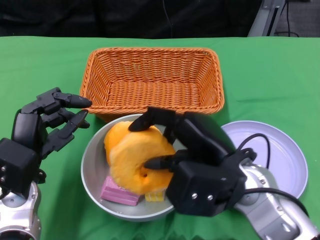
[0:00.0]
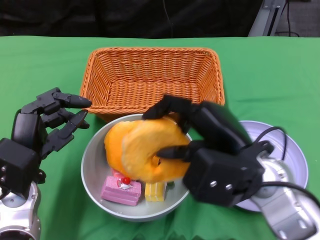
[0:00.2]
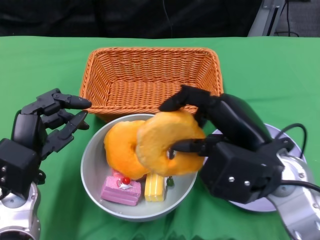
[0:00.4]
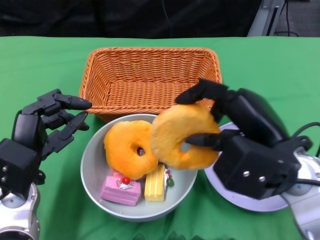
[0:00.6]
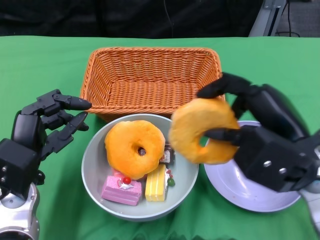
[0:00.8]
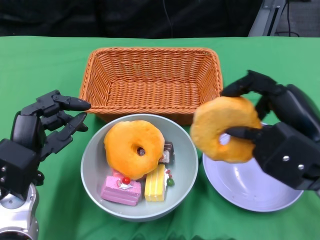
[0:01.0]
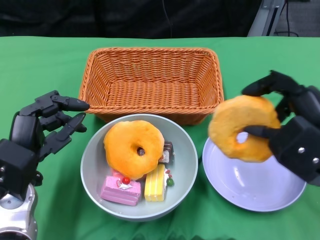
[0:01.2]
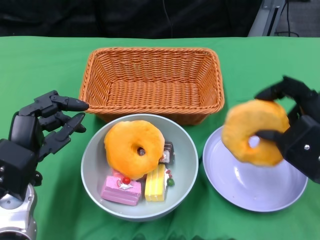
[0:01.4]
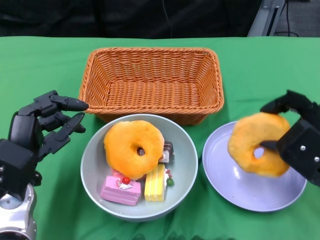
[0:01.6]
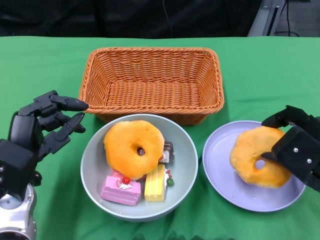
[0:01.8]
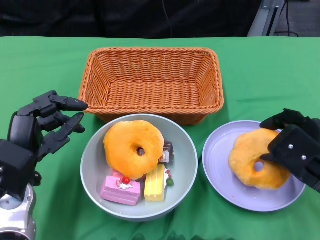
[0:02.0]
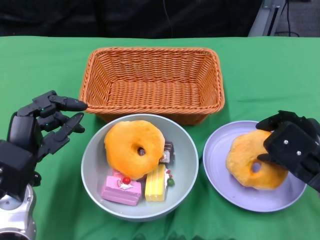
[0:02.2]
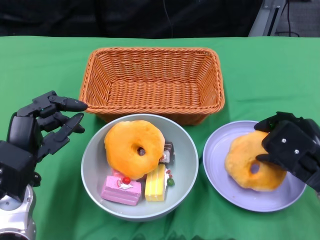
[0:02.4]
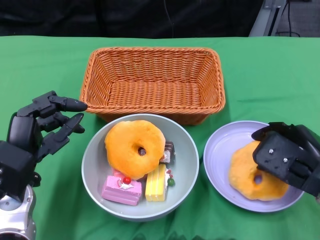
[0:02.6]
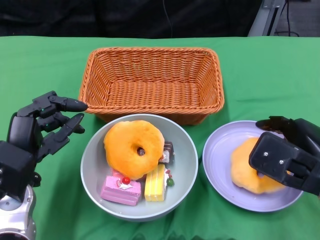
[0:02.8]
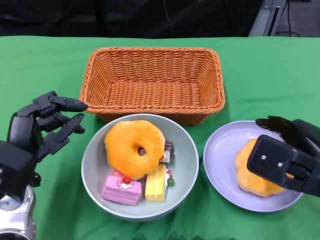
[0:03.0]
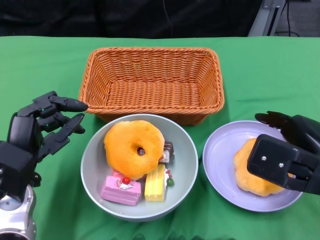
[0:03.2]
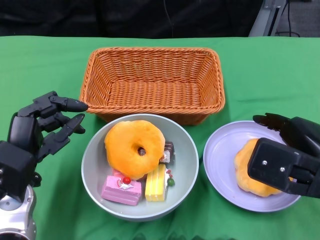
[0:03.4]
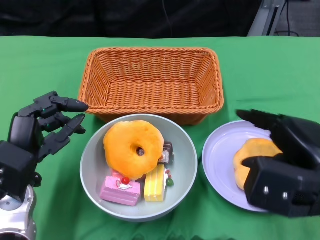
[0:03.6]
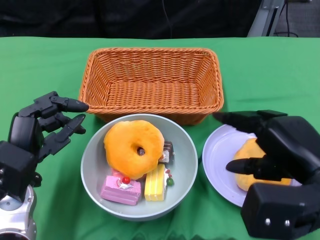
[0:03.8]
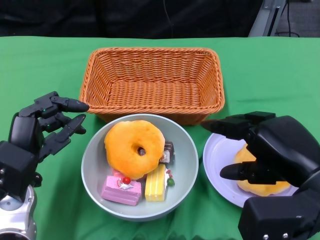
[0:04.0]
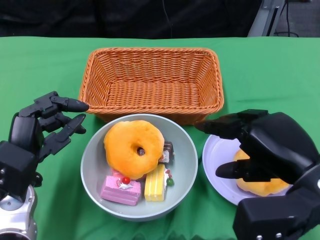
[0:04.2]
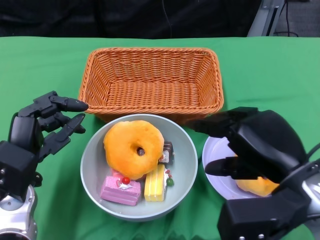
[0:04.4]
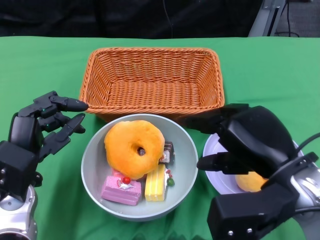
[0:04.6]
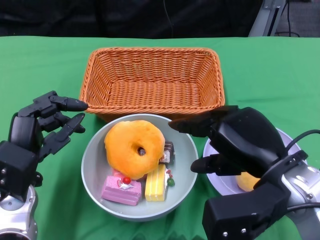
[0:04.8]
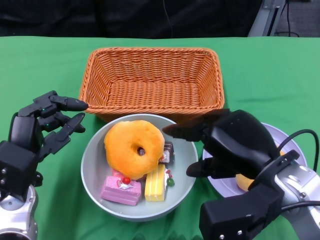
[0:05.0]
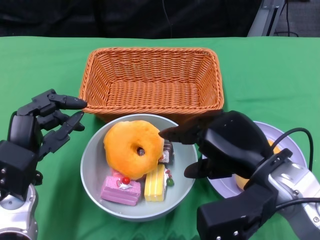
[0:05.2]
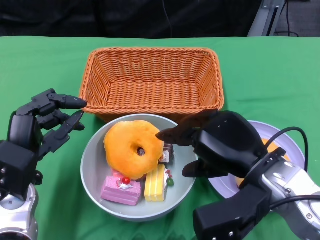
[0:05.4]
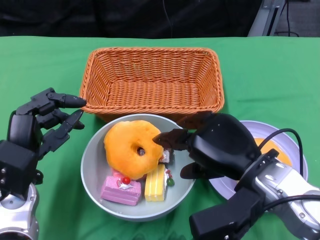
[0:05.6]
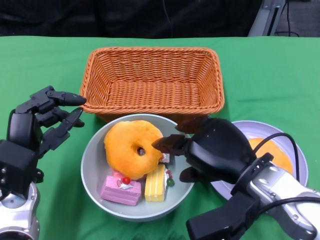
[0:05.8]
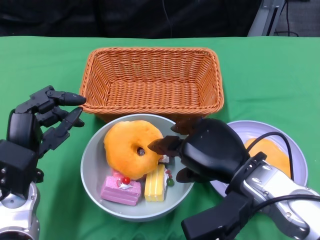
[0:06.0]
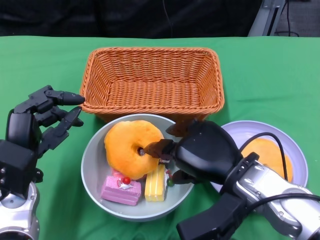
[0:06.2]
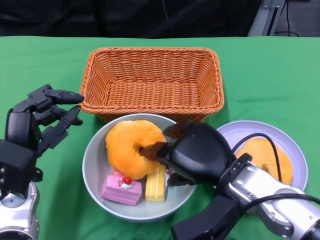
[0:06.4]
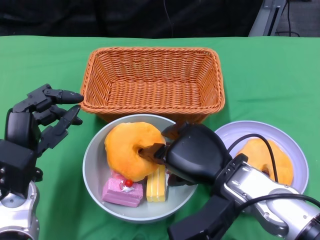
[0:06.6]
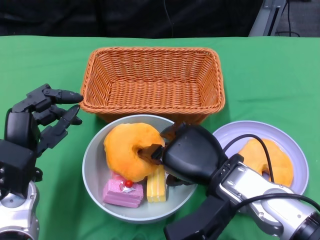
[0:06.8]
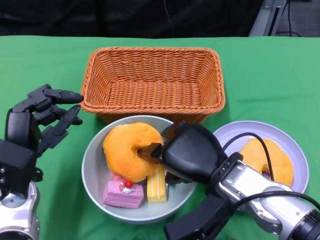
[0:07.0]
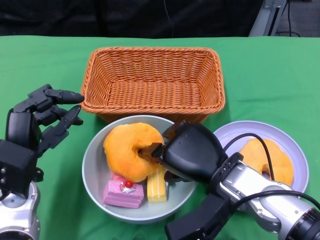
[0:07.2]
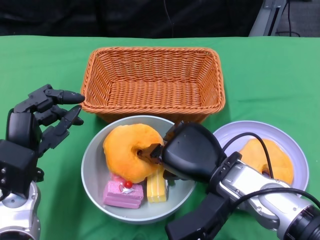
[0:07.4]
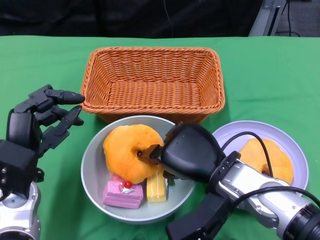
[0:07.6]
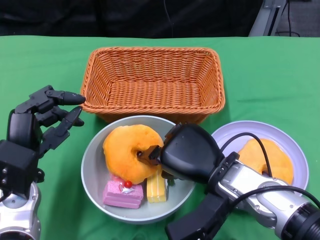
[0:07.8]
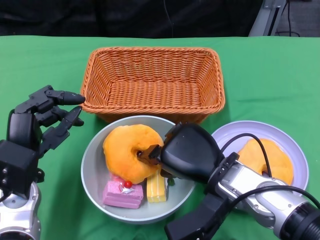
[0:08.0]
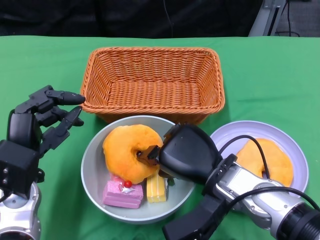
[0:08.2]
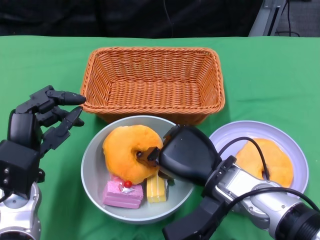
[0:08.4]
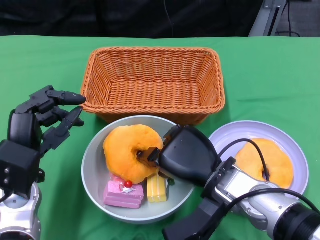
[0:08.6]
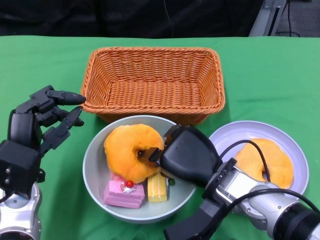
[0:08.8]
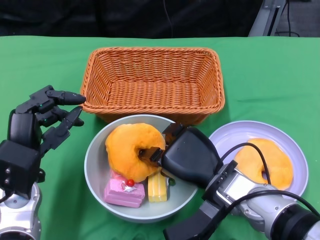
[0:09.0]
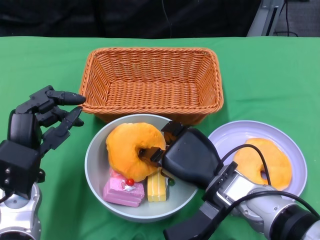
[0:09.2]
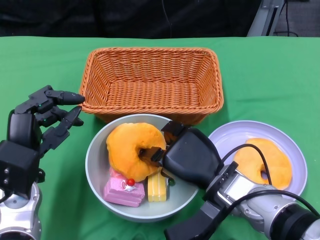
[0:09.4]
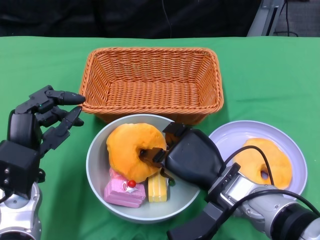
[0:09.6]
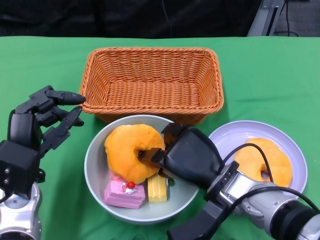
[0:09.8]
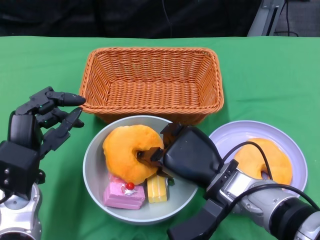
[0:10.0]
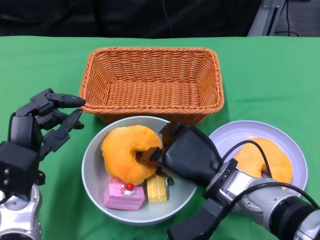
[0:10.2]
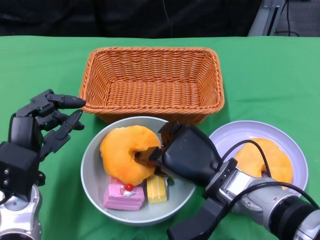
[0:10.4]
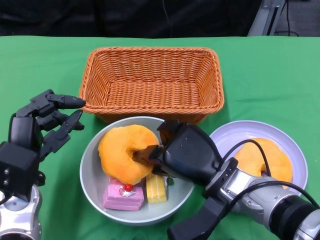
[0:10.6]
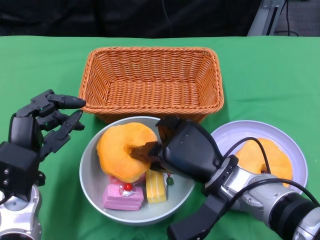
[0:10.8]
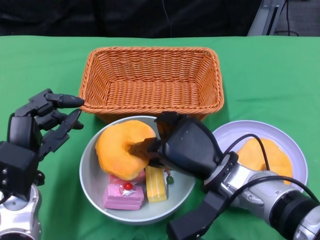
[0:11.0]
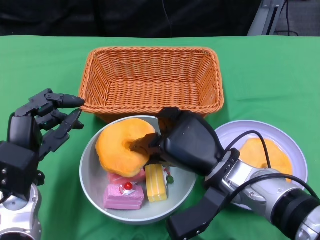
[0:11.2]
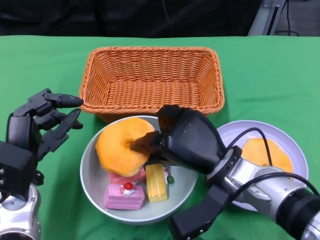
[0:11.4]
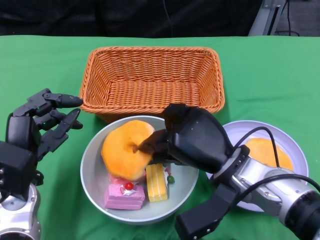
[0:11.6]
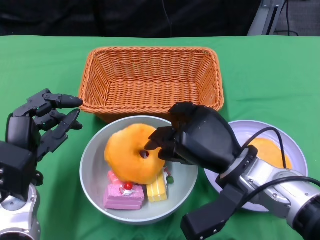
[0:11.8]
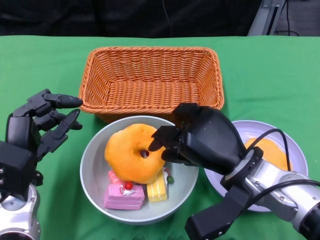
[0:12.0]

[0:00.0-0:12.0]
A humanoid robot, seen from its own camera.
0:00.0 to 0:01.6: The right hand is displaced to the right by about 15 cm.
0:03.0 to 0:04.4: The right hand shifts by about 5 cm.
0:04.4 to 0:06.0: The right hand shifts some 5 cm to the left.
0:06.0 to 0:07.6: There are only small adjustments of the hands.
0:07.6 to 0:10.4: The hands move only a little.

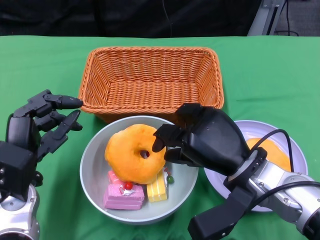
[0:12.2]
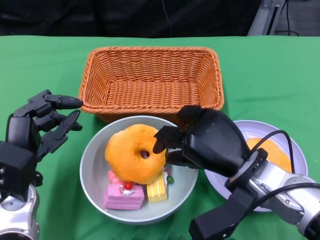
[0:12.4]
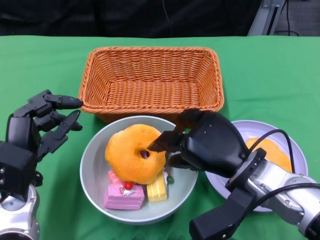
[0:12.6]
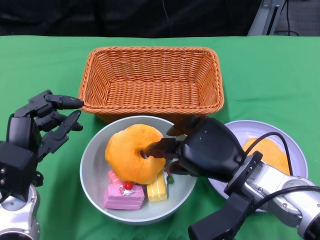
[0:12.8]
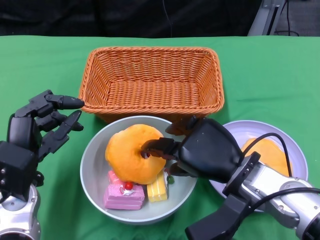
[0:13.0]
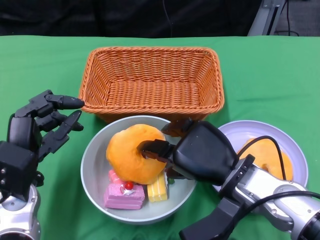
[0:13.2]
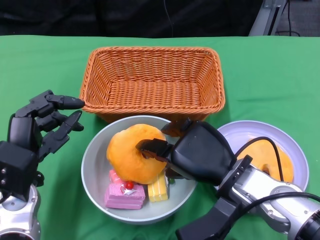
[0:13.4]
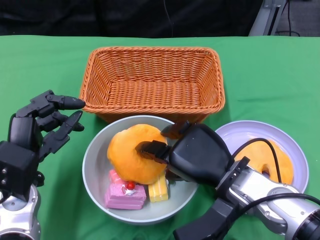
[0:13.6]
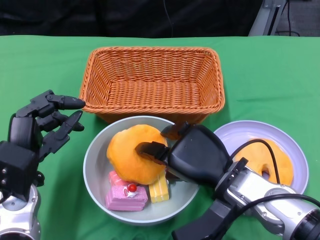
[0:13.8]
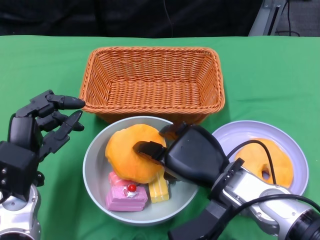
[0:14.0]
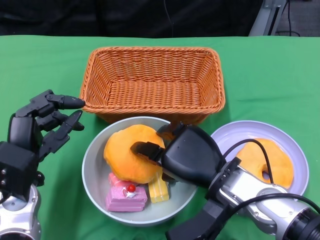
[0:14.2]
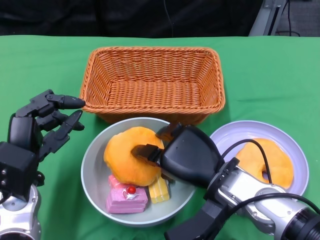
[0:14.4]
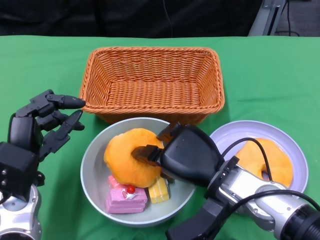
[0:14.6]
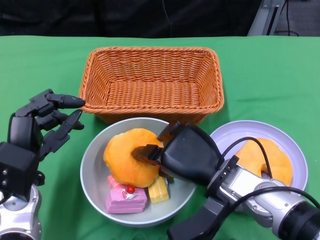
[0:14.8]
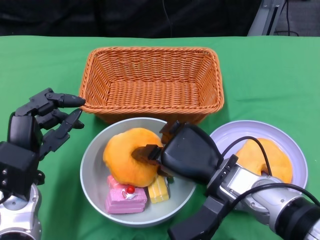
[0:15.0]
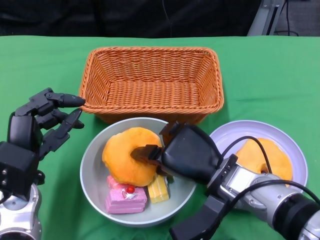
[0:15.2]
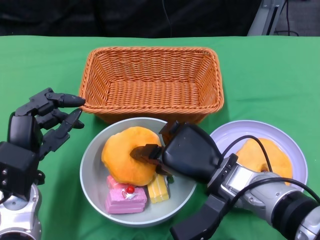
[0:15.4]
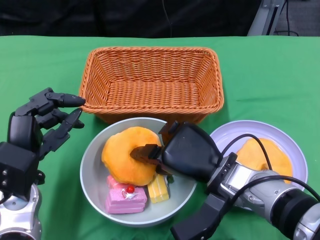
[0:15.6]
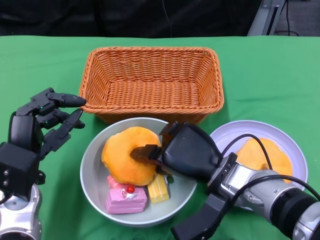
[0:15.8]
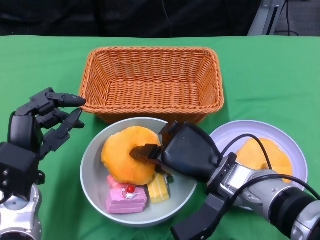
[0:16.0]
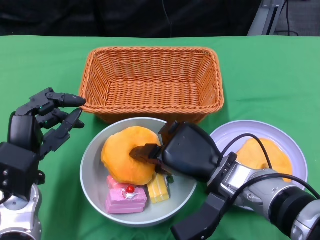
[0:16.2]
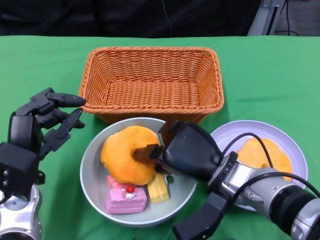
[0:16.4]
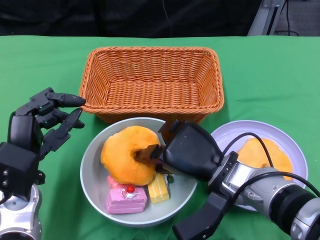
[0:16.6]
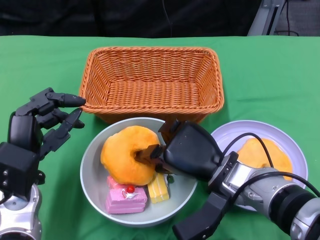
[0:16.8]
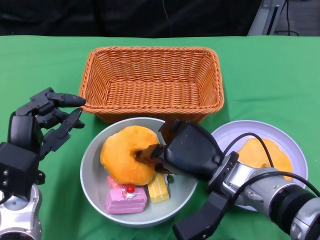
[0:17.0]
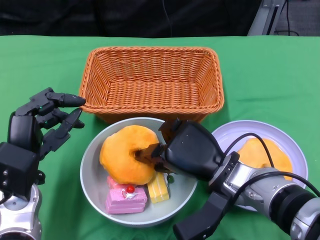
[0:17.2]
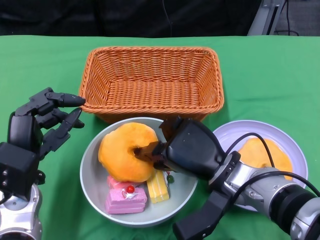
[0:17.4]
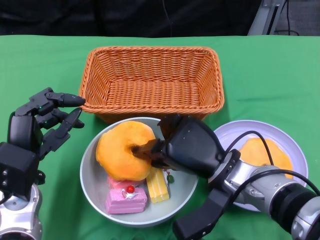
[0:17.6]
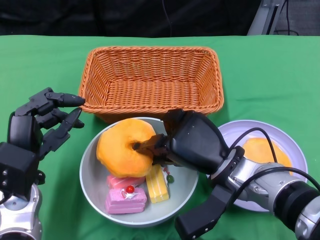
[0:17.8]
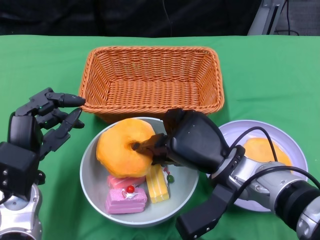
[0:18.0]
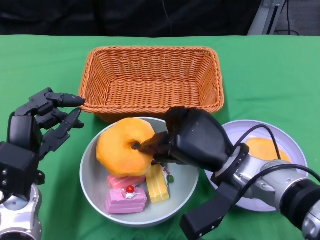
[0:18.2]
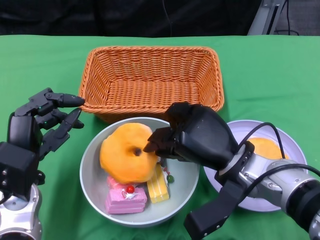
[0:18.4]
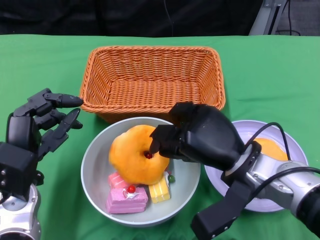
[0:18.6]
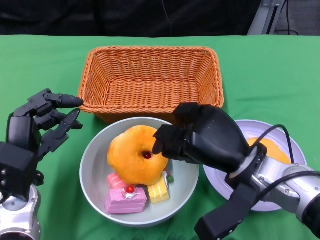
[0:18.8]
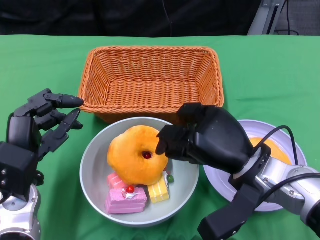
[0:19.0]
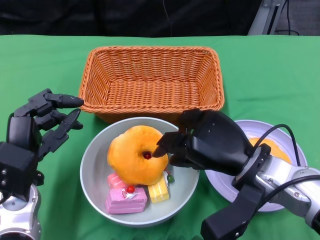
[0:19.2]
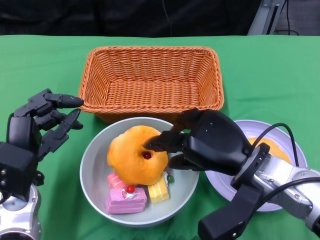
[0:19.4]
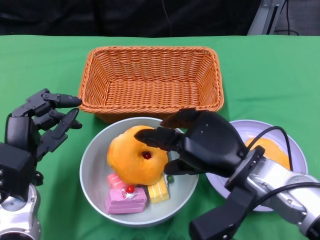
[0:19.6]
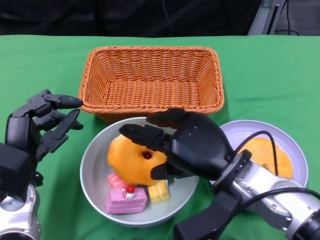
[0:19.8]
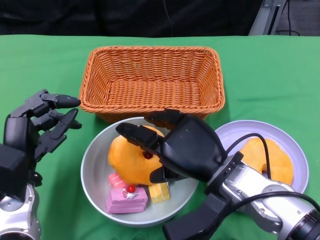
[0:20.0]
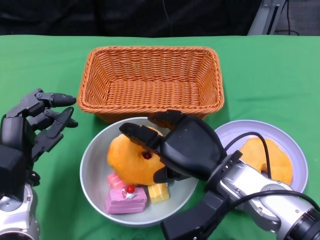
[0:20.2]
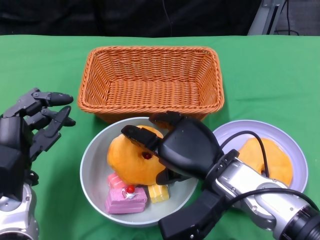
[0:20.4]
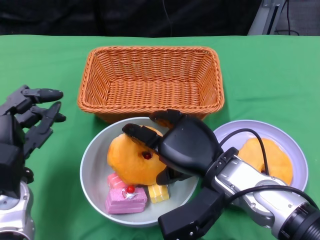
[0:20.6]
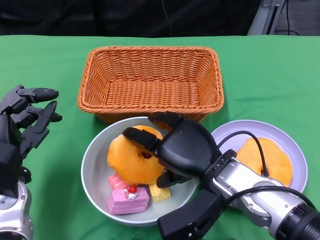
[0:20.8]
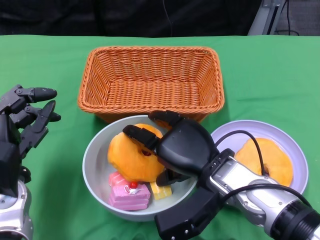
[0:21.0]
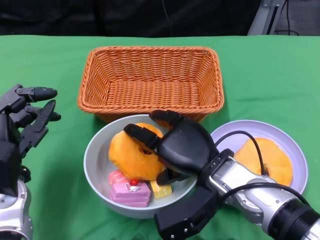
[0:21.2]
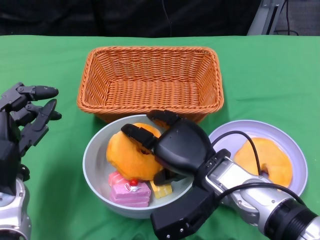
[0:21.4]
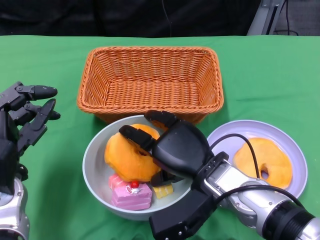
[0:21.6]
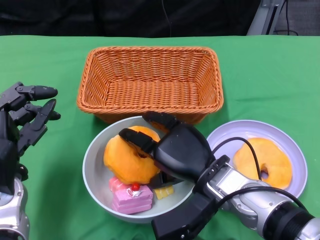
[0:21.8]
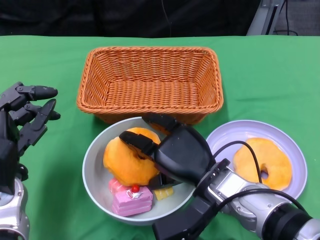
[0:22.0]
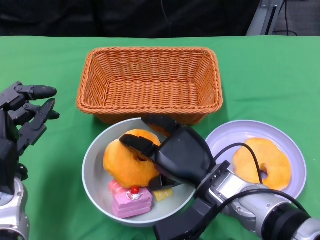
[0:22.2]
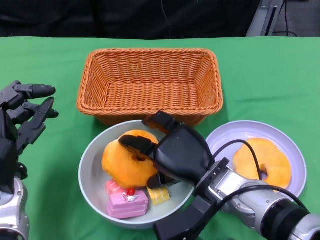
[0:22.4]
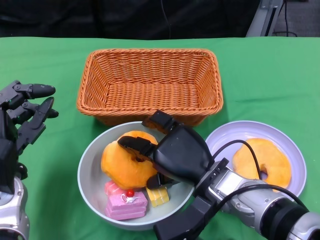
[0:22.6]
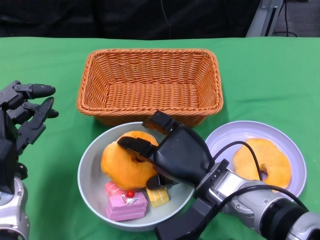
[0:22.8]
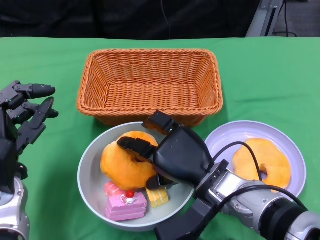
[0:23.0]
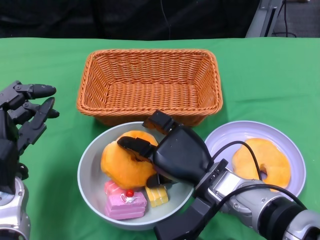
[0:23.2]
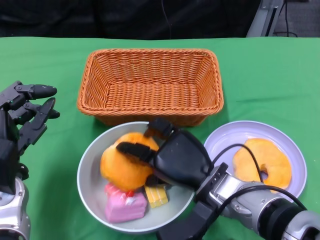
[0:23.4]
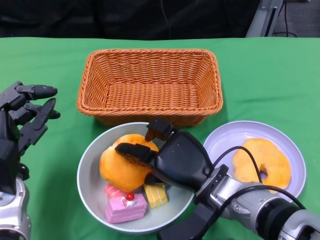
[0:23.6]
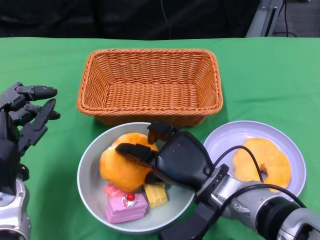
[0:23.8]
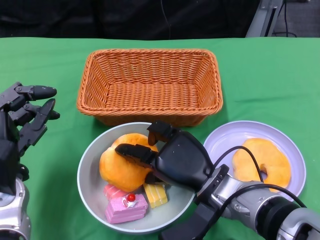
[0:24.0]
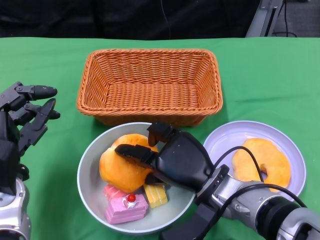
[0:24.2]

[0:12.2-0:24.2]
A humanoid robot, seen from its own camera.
0:13.8 to 0:15.2: The hands move only a little.
0:15.2 to 0:16.6: The two hands keep their place.
0:16.6 to 0:19.8: The hands make only small movements.
0:22.6 to 0:24.2: The hands stay close to where they were, moving slightly.
